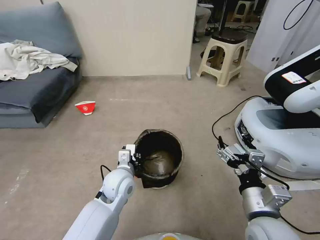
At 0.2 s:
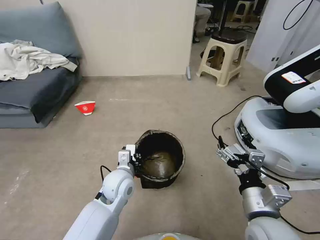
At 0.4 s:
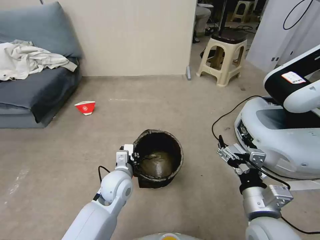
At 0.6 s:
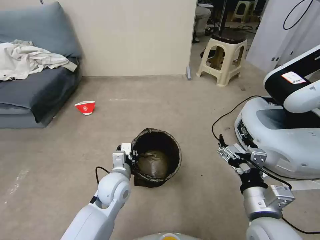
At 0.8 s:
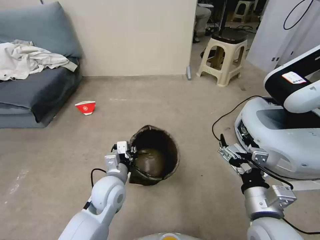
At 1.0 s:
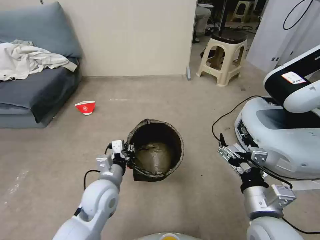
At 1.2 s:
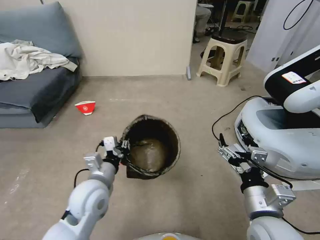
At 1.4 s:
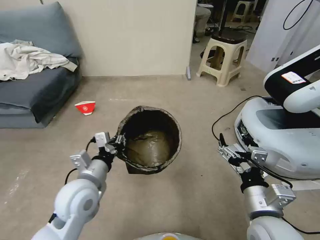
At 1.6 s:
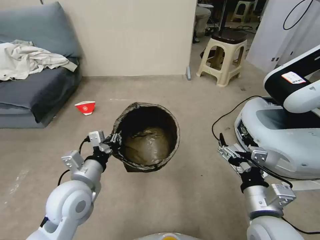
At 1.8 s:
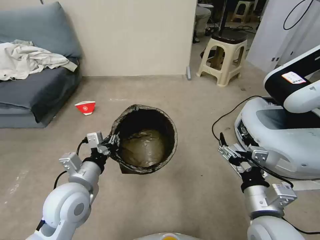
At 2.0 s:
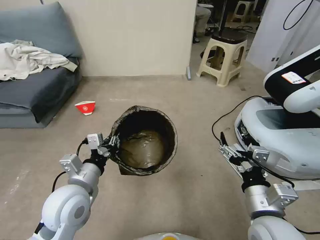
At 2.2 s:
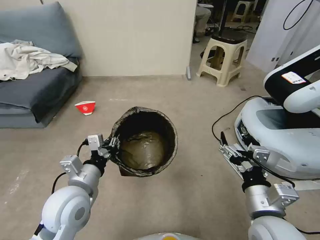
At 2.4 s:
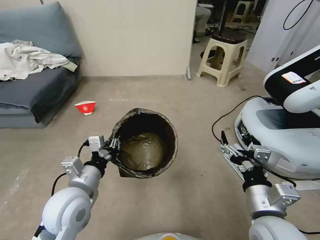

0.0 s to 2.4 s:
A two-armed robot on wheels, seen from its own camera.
Task of the whole recording: Pick up the trash can from the floor.
0.0 to 1.2 s: The left gripper heads upward, to the left and backward, covering about 10 cm.
1.2 to 2.4 s: The grippers move only a little.
